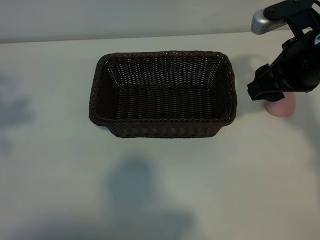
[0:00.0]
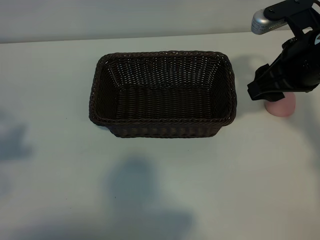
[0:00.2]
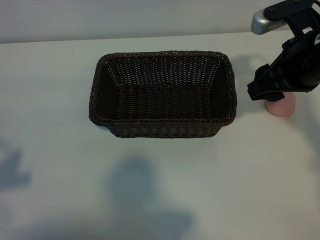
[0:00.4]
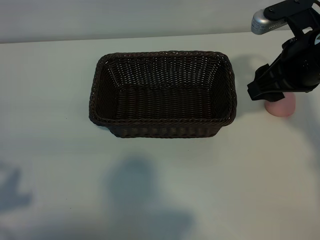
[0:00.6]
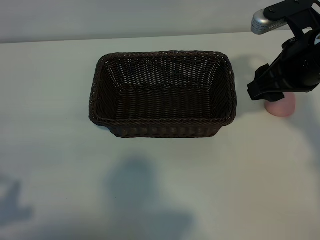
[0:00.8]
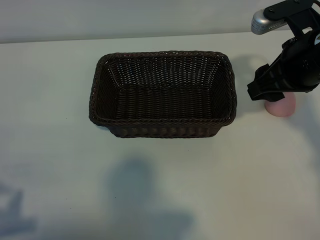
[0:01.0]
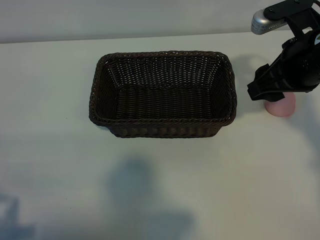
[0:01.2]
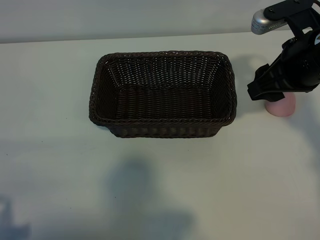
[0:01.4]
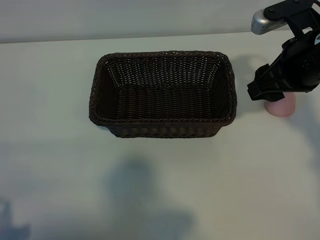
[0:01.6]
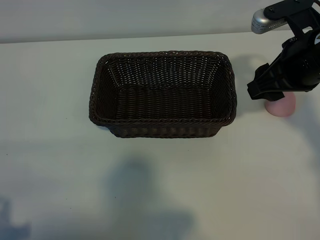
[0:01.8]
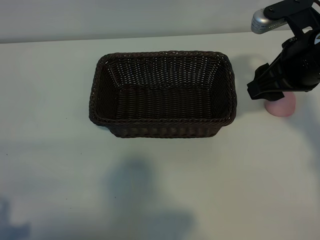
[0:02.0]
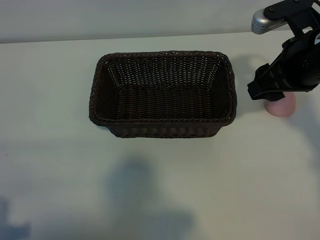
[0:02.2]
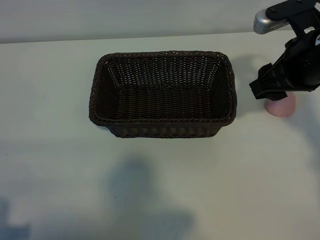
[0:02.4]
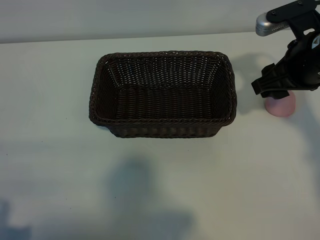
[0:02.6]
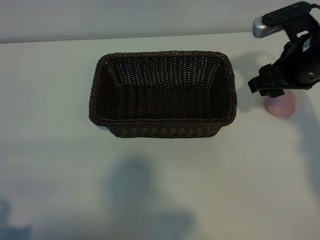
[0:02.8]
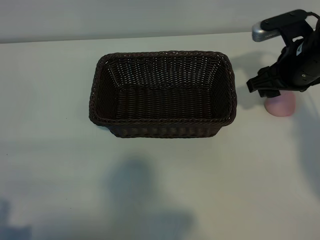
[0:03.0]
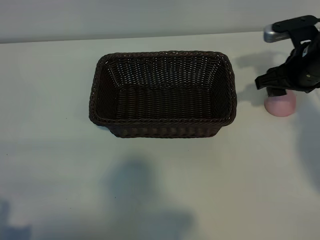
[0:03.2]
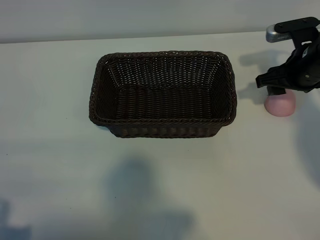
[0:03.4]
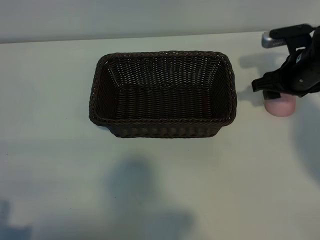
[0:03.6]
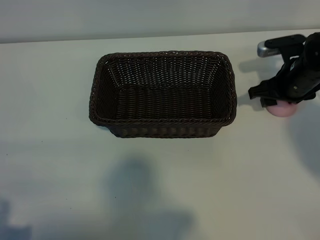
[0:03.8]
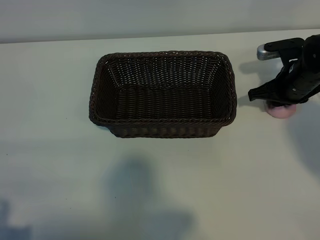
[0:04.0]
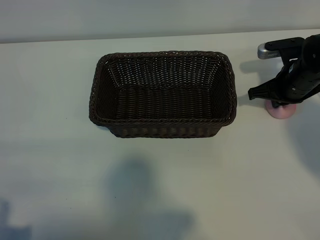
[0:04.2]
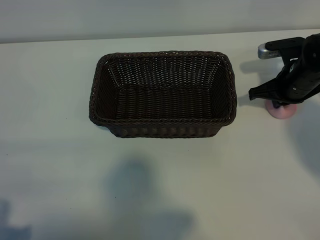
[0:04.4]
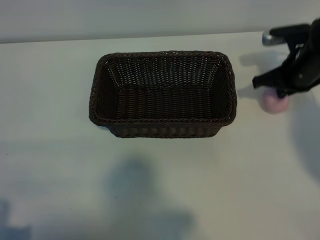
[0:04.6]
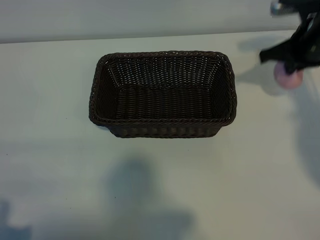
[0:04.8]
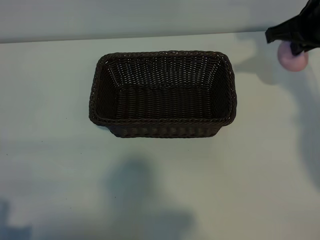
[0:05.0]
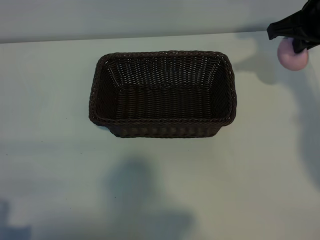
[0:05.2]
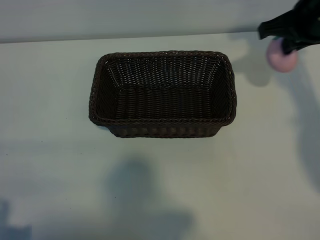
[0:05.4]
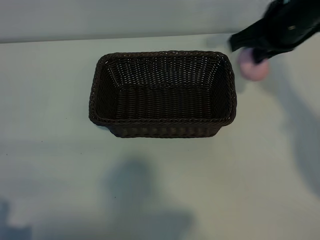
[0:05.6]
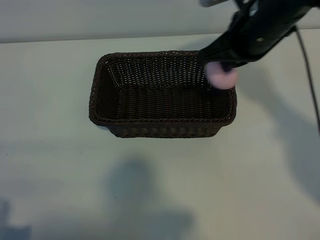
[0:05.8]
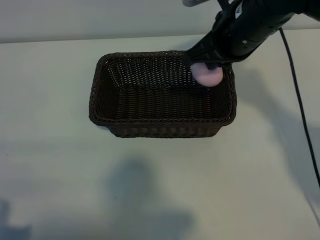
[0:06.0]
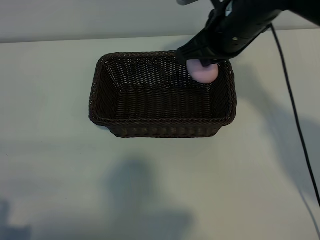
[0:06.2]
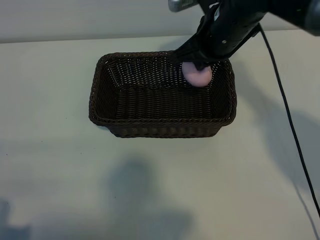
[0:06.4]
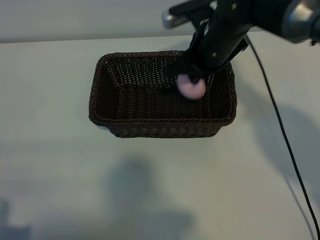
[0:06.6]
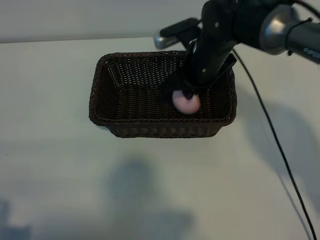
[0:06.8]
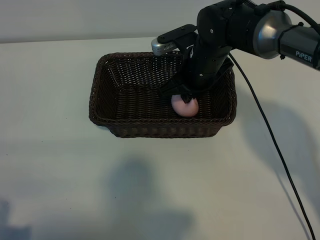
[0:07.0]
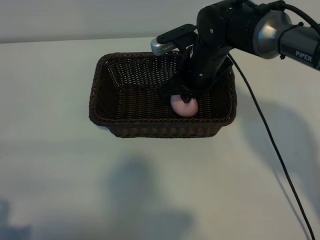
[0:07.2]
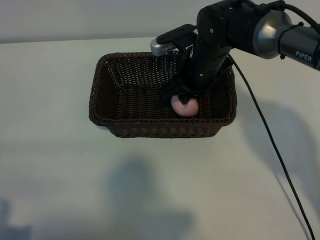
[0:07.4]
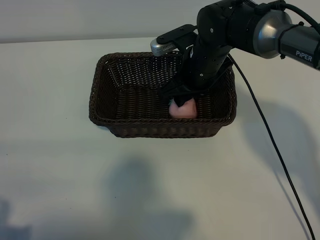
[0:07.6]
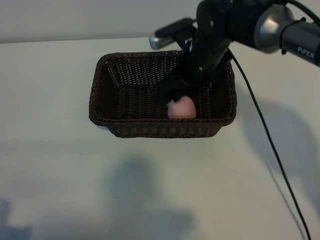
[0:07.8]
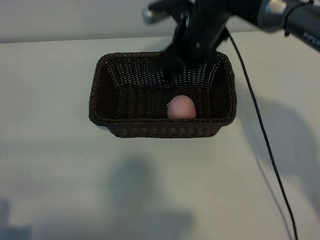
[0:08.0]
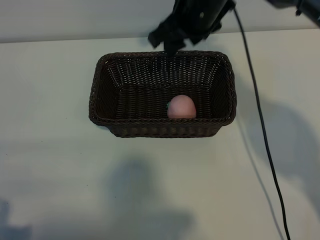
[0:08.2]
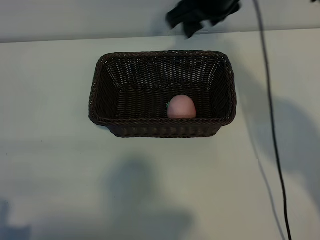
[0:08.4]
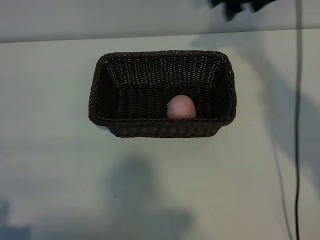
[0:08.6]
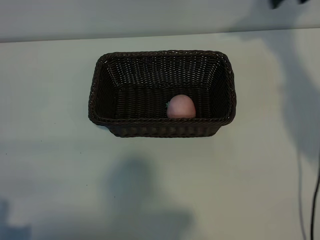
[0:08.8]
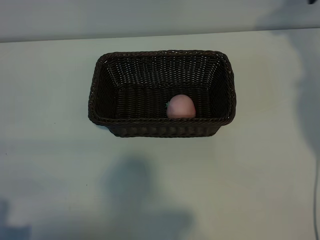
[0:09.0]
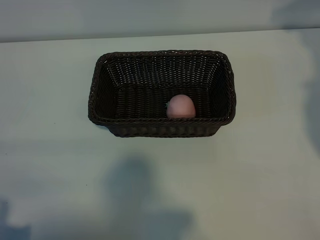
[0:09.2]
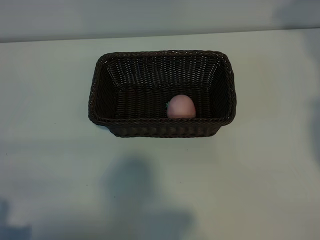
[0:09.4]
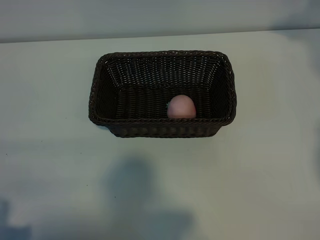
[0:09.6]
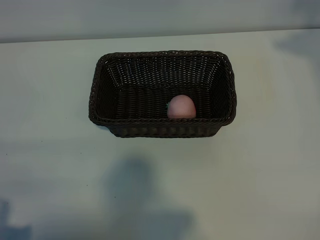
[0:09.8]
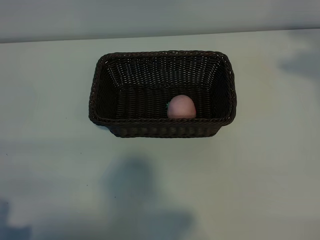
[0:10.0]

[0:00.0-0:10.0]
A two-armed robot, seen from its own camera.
Task of the whole recording: pick up the peach and put it into the basket.
Step, 0:00.0 to 0:04.4: Grasp the peach with right gripper.
Step, 0:04.6 to 0:07.8: Place the peach in the basket with right gripper.

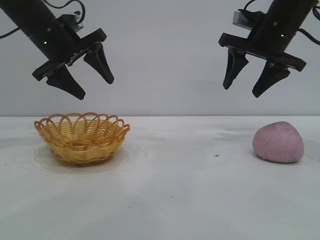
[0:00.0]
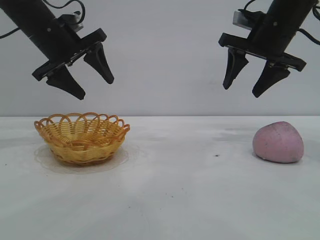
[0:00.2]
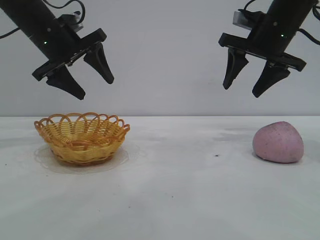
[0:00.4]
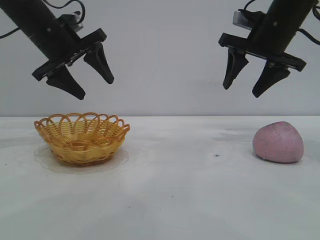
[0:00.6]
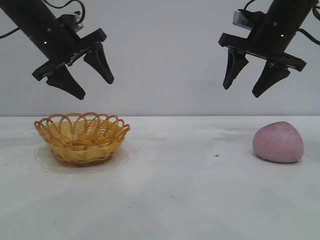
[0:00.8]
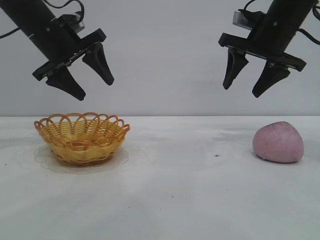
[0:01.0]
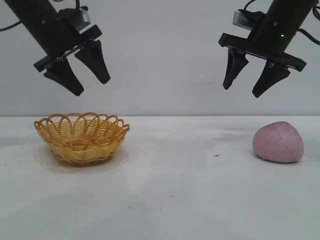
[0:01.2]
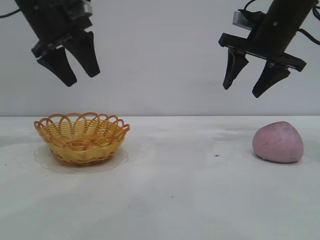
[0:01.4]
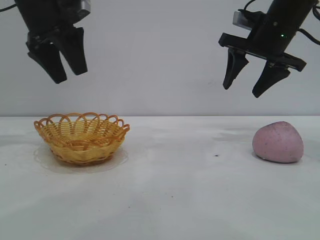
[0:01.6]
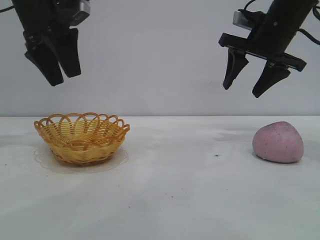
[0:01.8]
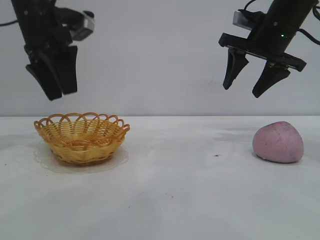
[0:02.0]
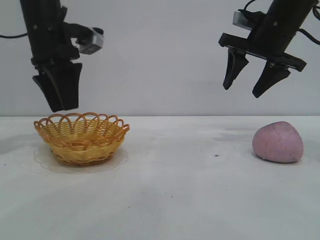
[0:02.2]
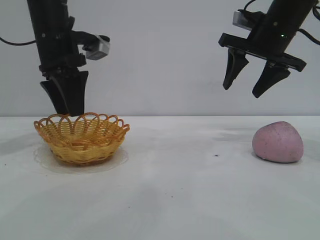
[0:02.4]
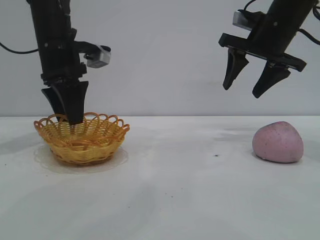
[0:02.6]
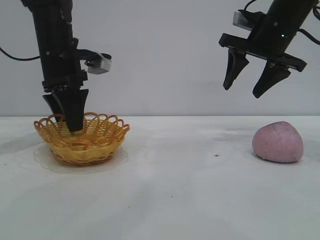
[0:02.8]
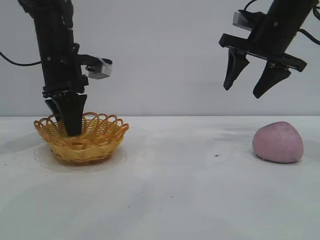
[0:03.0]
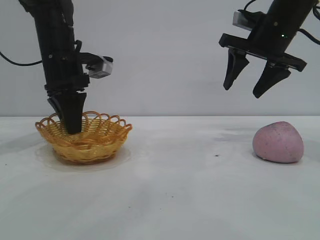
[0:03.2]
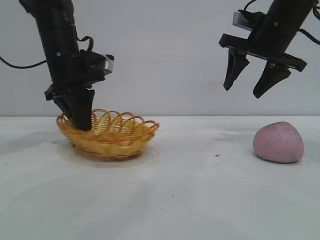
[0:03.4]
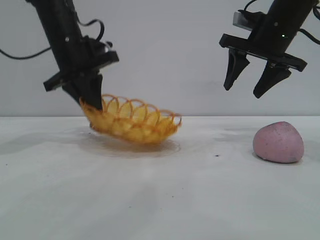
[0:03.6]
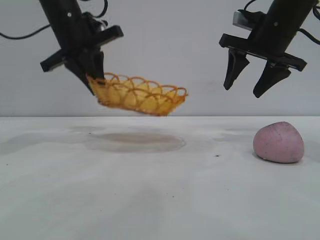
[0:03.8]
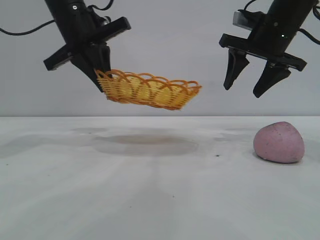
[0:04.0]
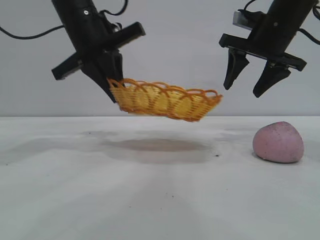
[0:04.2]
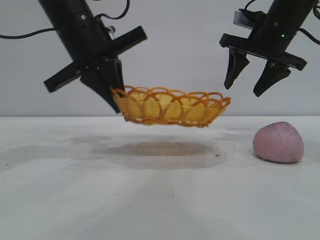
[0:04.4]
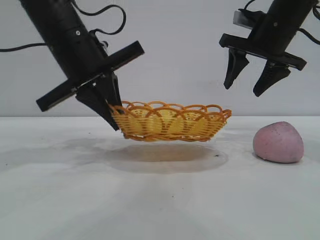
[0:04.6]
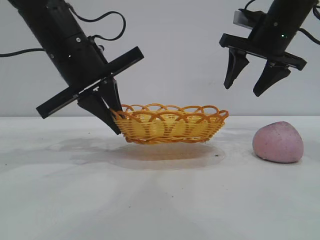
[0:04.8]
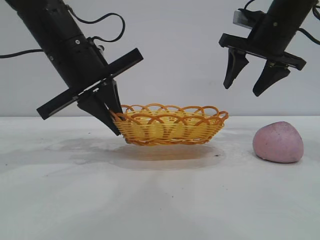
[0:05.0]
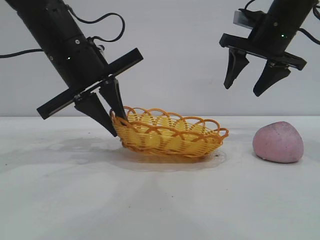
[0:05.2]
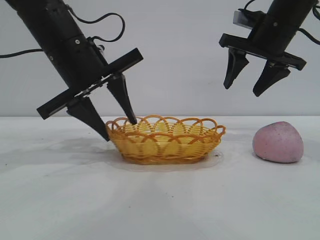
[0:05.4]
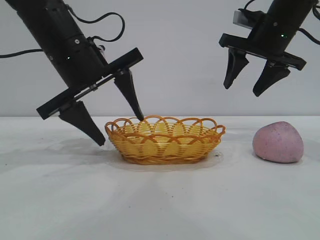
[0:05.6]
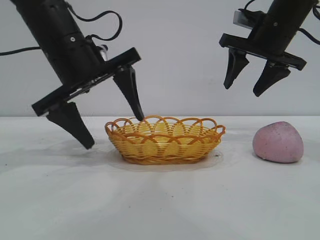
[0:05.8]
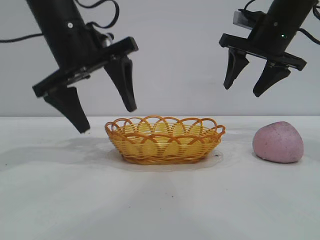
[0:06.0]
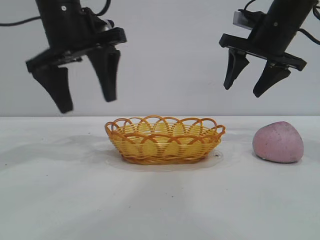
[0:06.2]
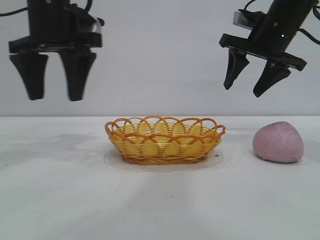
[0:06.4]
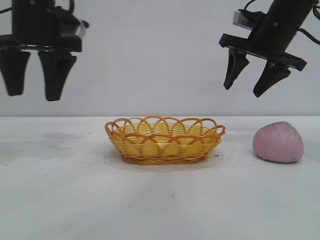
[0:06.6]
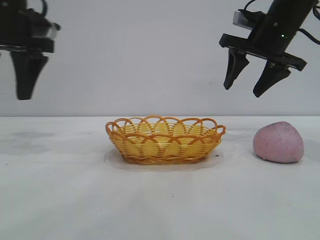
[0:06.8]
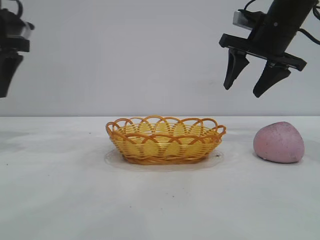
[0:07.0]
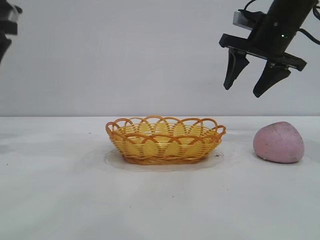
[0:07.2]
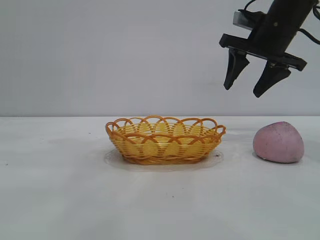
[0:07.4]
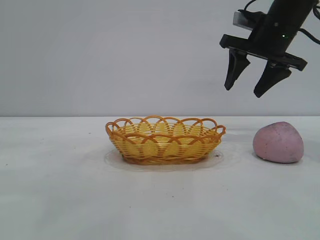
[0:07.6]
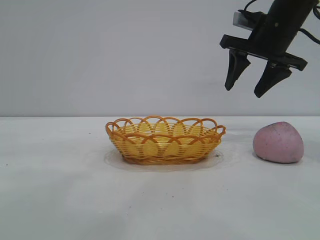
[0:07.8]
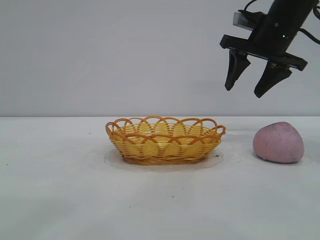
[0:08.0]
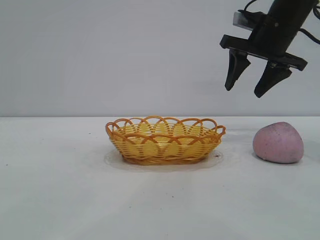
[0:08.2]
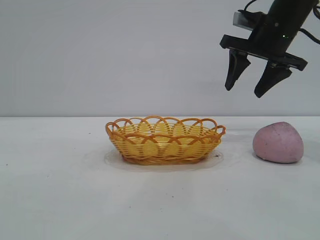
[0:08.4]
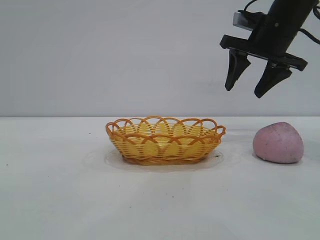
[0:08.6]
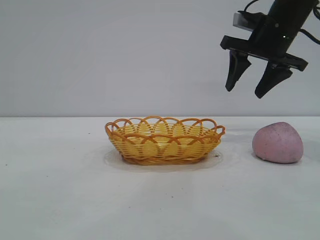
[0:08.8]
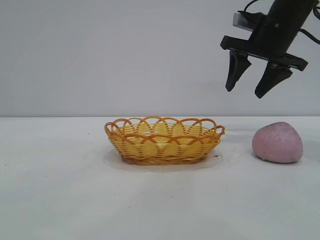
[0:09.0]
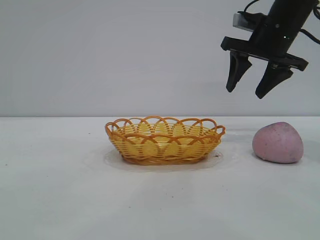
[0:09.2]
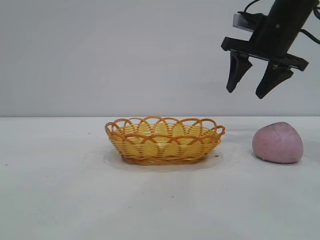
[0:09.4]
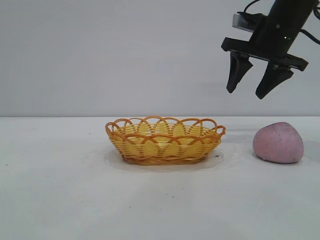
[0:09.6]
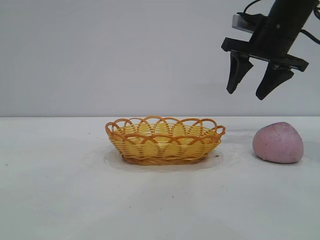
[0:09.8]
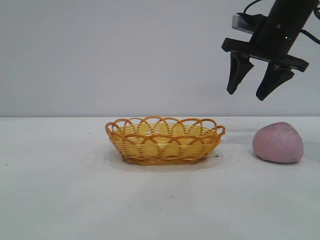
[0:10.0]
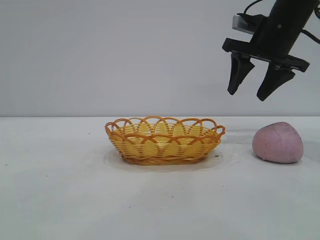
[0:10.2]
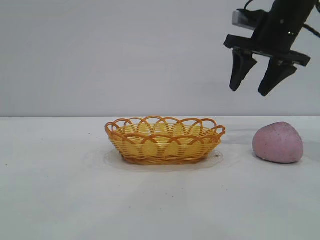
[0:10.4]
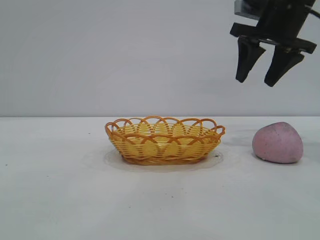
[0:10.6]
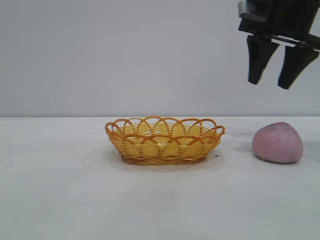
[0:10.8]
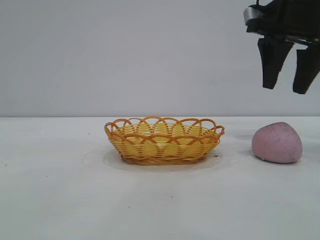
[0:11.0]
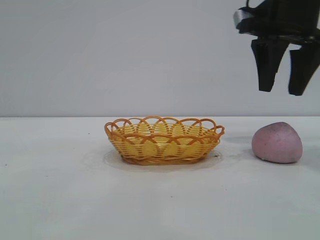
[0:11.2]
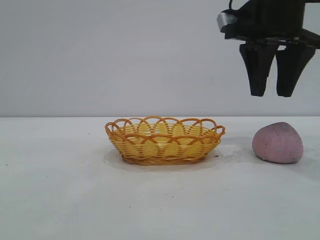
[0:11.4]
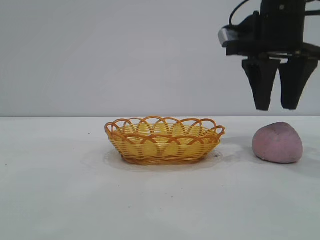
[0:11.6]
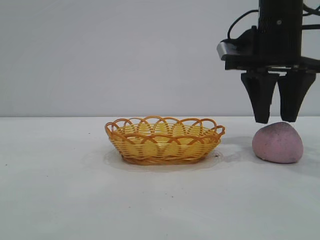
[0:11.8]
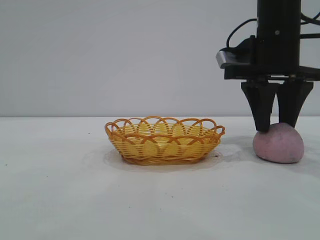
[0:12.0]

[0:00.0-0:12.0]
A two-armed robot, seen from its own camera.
Task of the whole recording: pick up the peach and put it into the basket.
Step, 0:00.0 to 0:06.0: Move the basket to the center of view.
